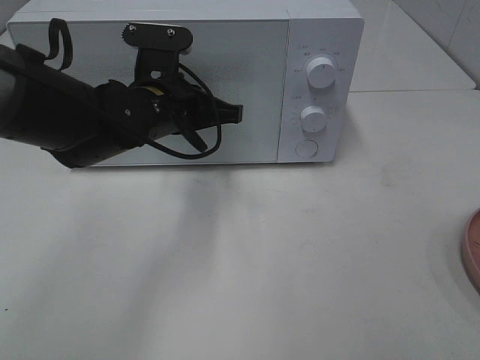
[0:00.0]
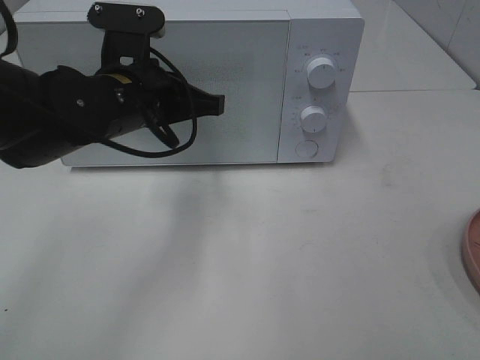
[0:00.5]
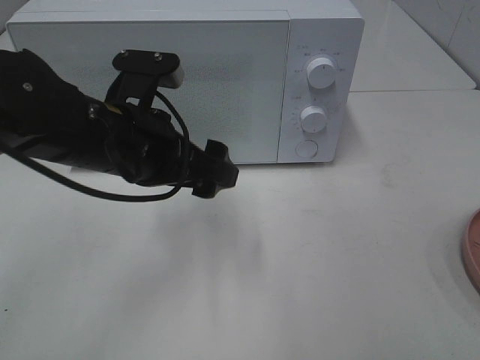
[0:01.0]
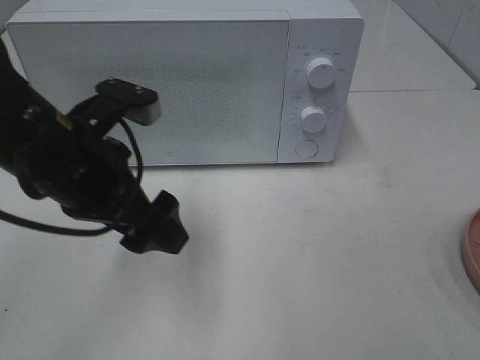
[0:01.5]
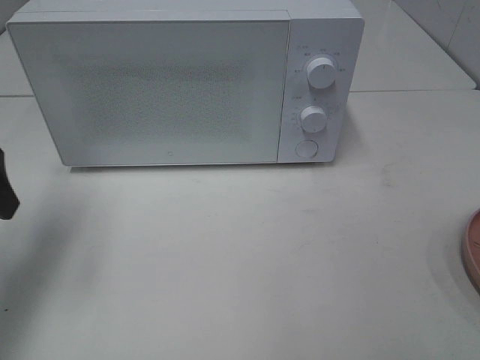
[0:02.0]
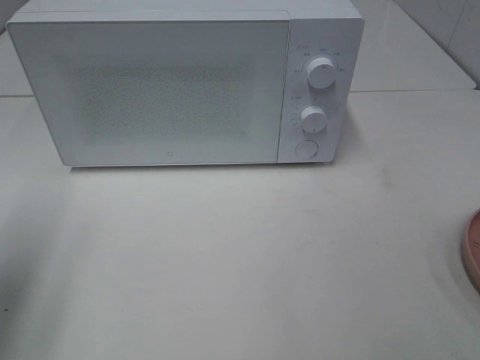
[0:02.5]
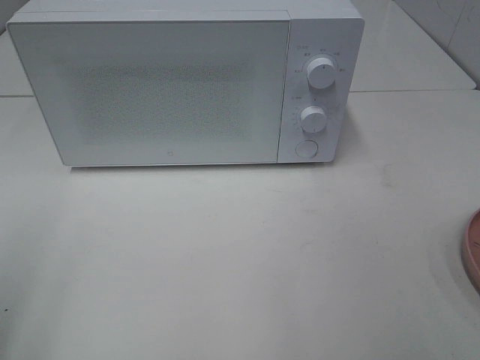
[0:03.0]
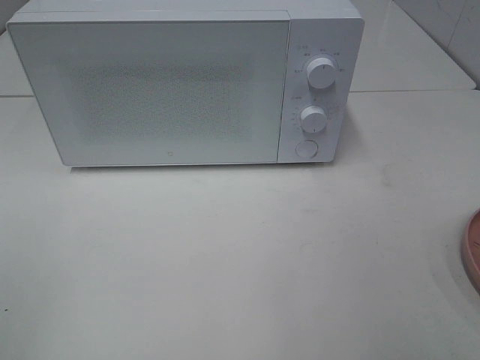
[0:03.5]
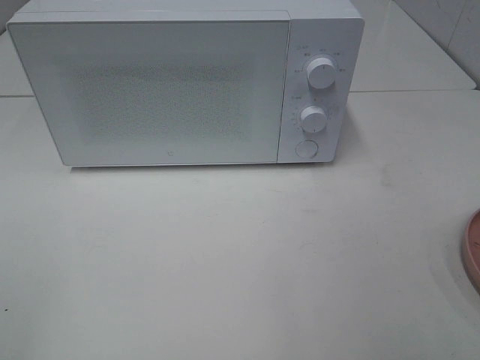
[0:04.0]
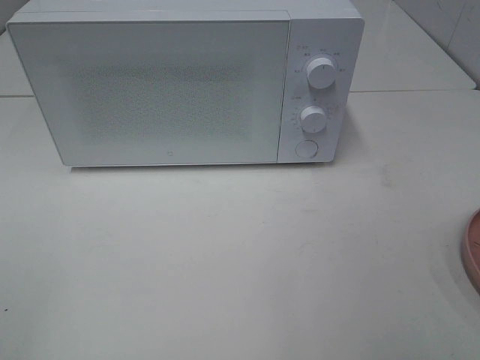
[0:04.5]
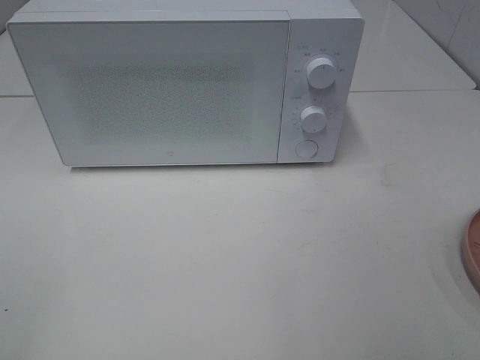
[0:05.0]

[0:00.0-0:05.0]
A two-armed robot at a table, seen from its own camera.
Task of the whole recording: Heat the burger.
0:00.0 to 0:02.5: The left gripper moves to the left, backward and upward, about 30 cm, and opens its fingers.
0:02.5 to 0:05.0: The left gripper goes roughly 15 cm backward.

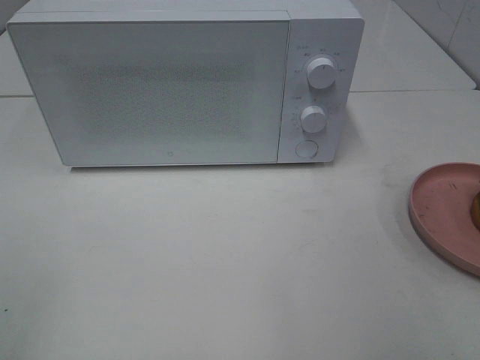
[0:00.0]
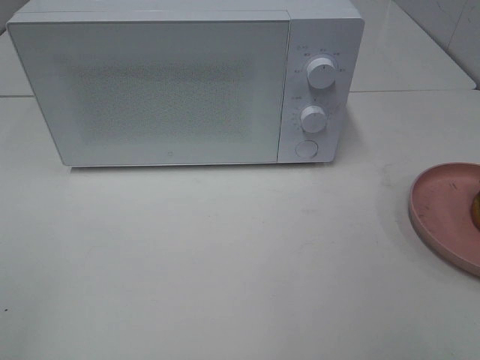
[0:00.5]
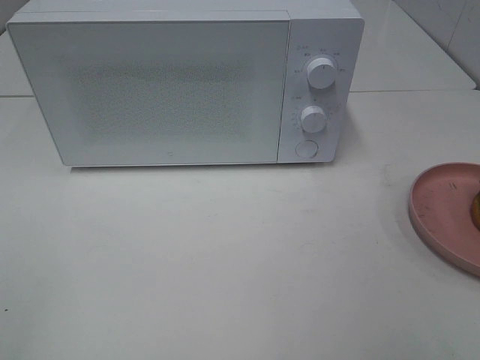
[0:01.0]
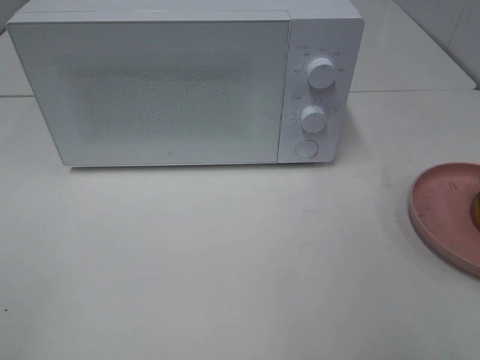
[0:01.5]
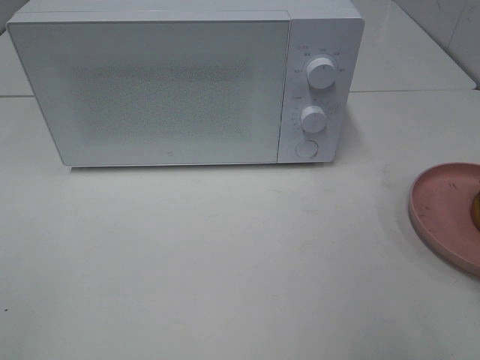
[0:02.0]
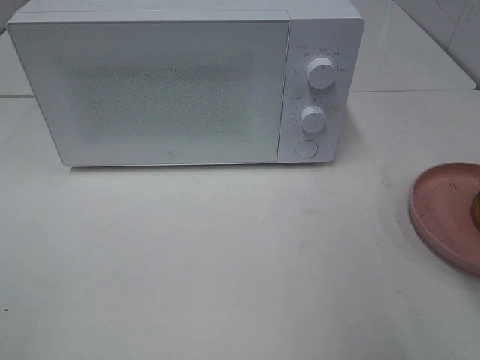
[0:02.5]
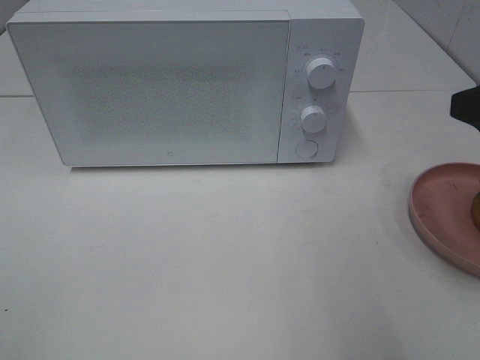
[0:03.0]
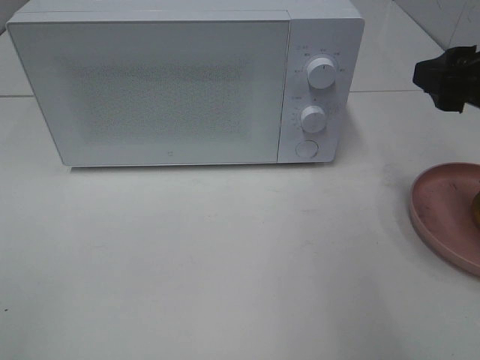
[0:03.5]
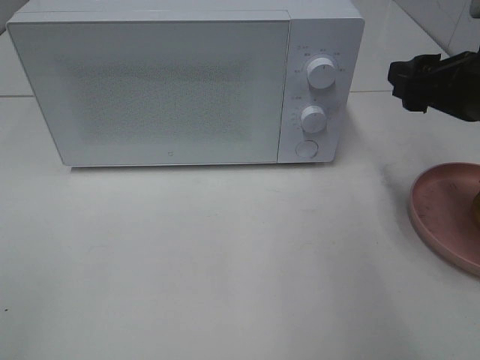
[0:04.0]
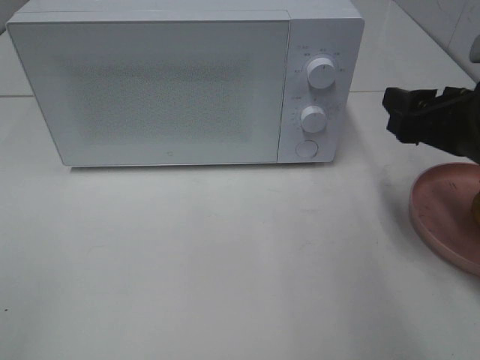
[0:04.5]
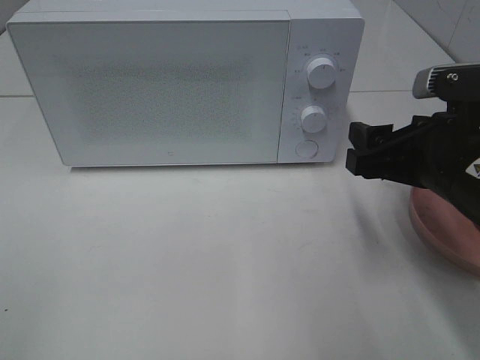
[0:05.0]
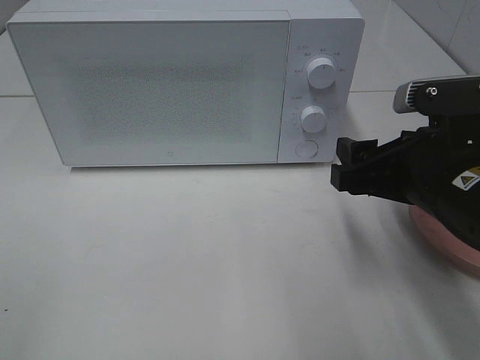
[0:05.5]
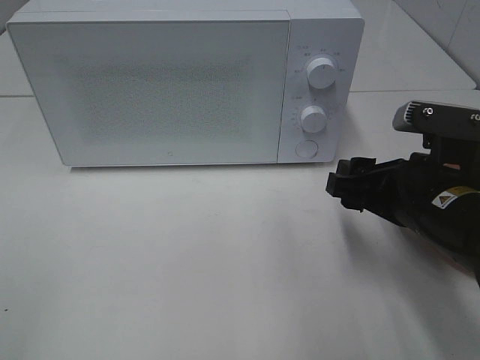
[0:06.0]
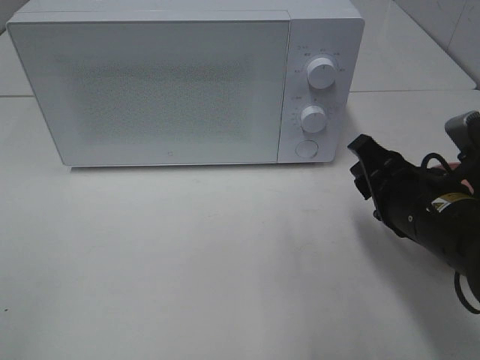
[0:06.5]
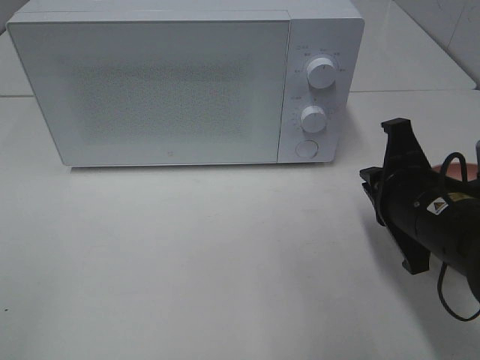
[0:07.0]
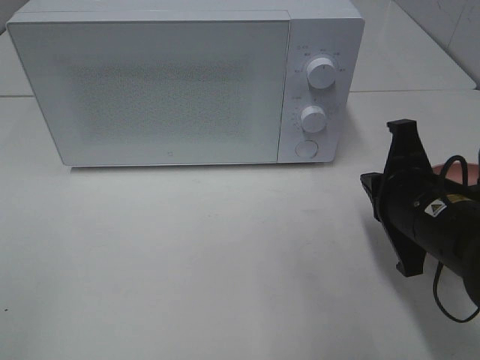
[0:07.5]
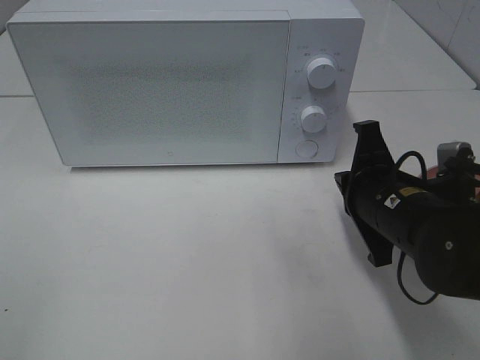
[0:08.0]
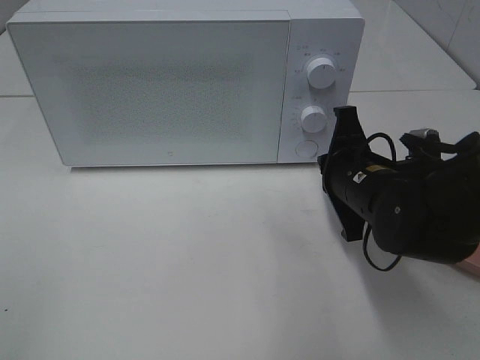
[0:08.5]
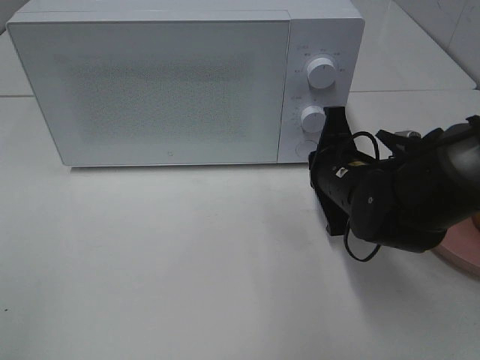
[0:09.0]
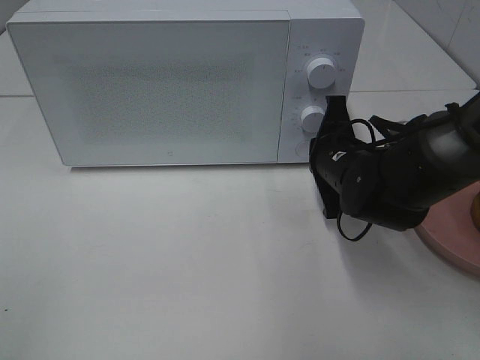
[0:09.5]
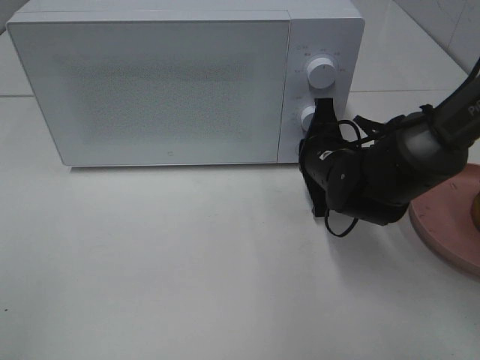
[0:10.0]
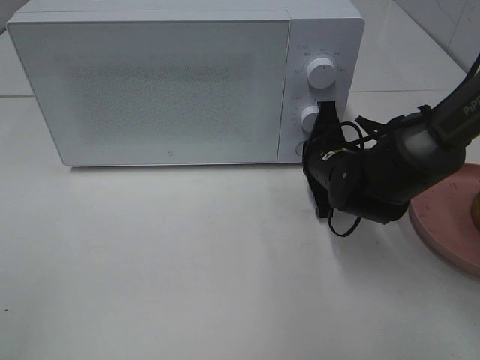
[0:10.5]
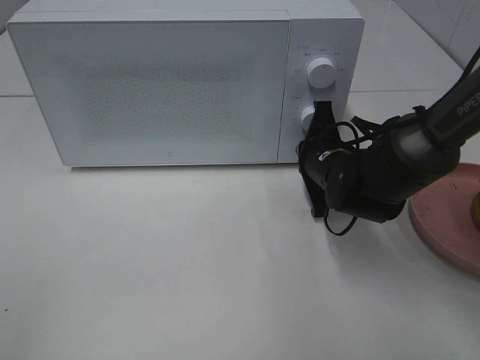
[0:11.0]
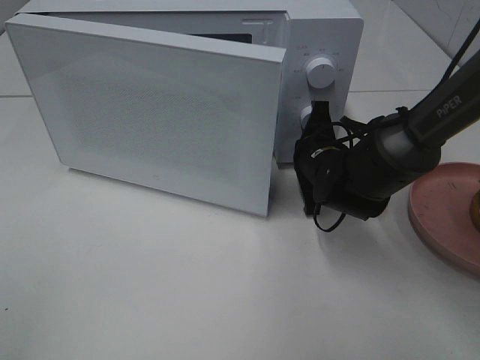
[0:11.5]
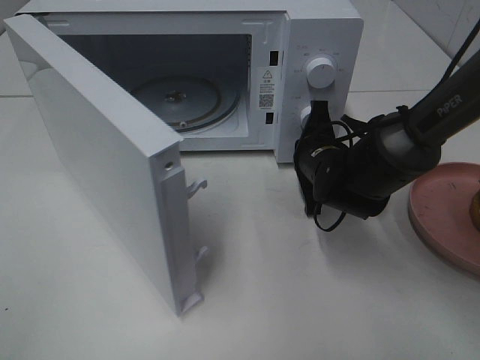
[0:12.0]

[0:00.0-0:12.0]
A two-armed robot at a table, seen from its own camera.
Task of the whole recording: Heat the burger.
0:02.0 to 0:04.0: The right gripper travels forward by about 15 cm.
0:04.0 to 0:06.0: The right gripper moves downward, to the left and backward, some 10 cm.
0:06.0 to 0:08.0: The right gripper closes.
0:08.0 to 0:10.0: The right gripper goes approximately 10 cm forward.

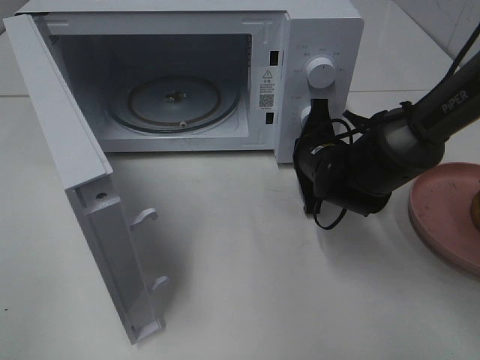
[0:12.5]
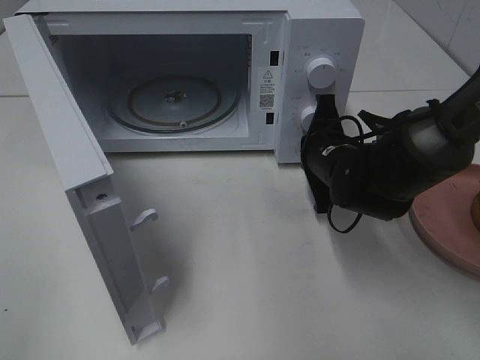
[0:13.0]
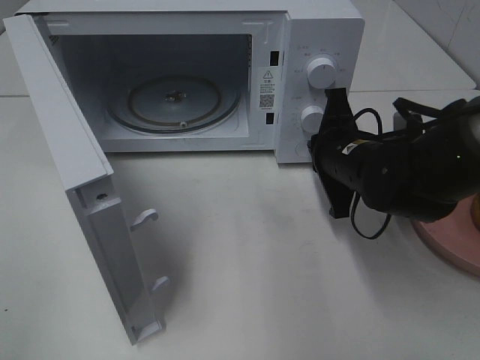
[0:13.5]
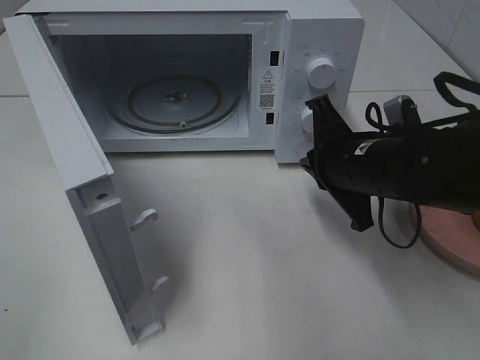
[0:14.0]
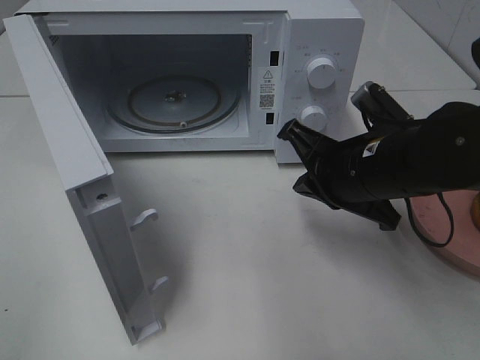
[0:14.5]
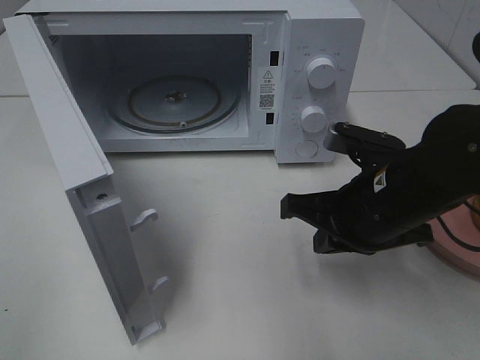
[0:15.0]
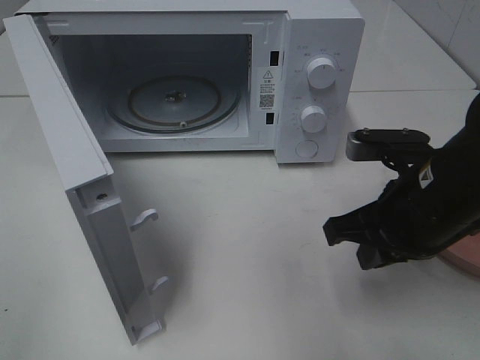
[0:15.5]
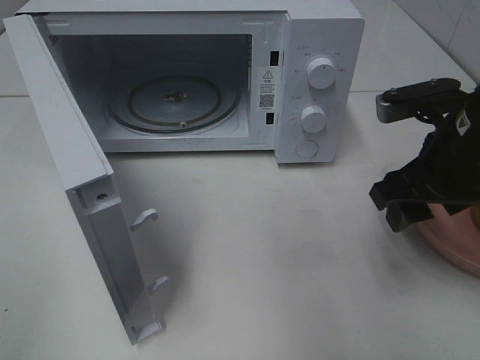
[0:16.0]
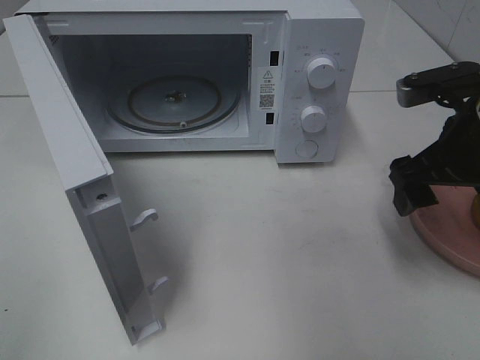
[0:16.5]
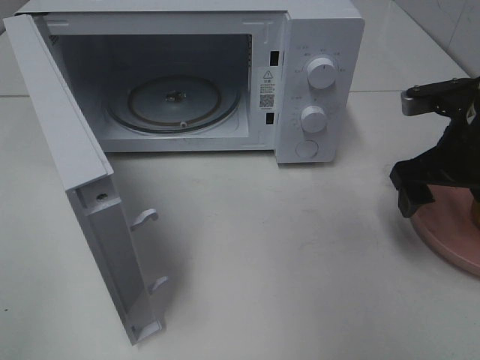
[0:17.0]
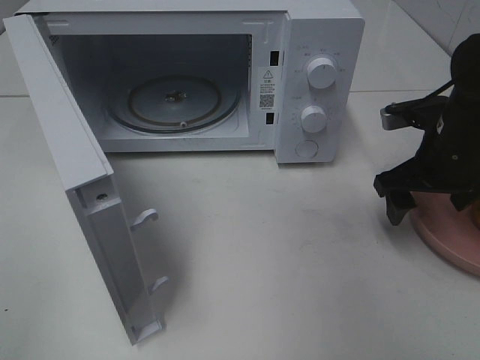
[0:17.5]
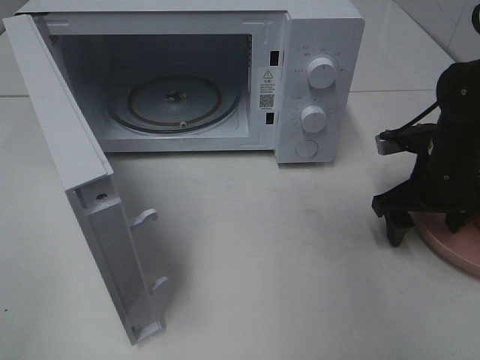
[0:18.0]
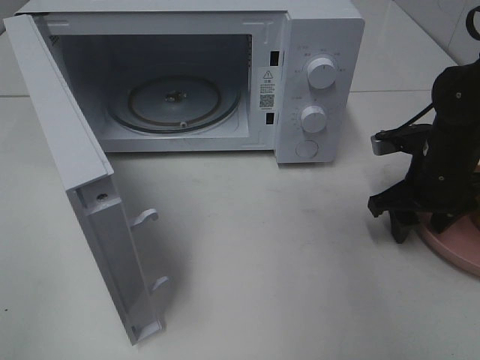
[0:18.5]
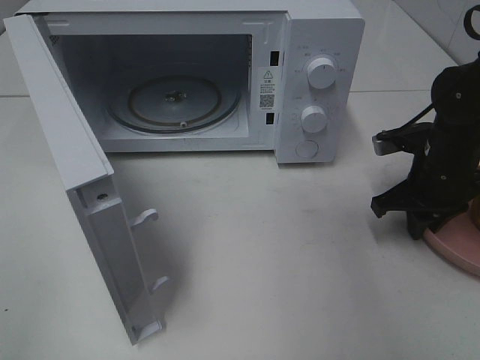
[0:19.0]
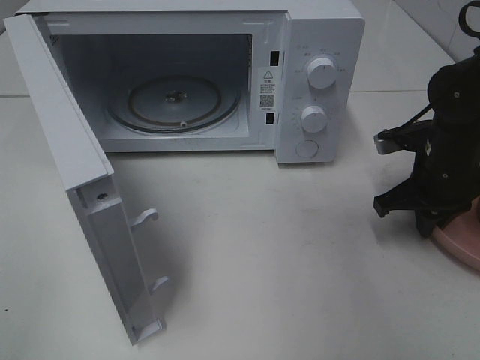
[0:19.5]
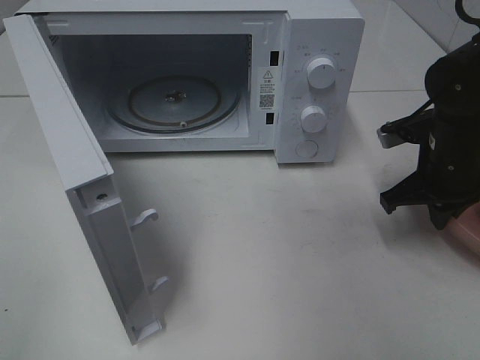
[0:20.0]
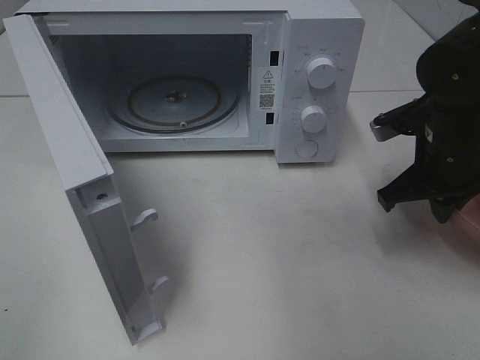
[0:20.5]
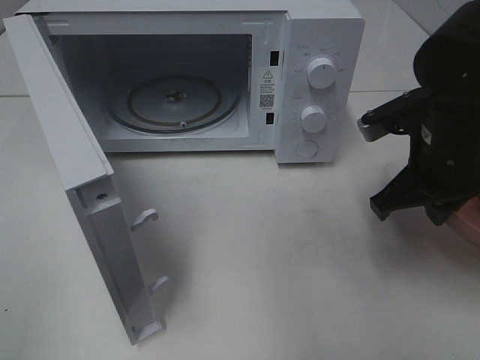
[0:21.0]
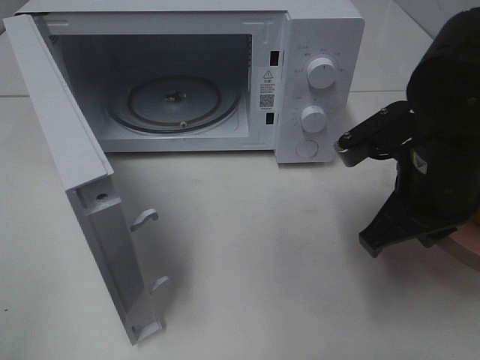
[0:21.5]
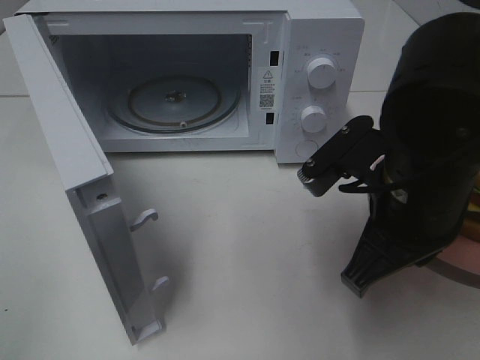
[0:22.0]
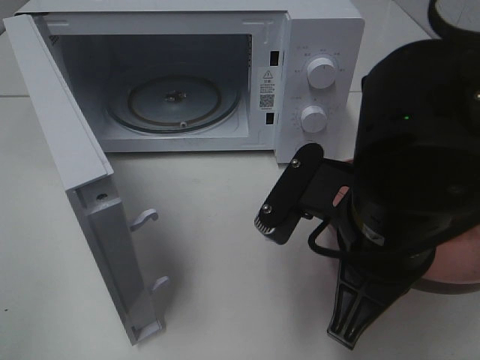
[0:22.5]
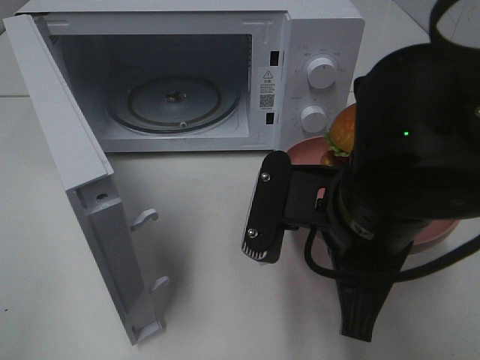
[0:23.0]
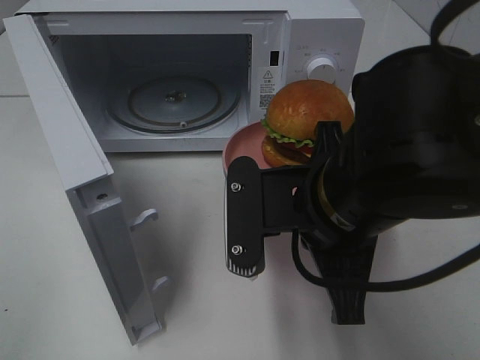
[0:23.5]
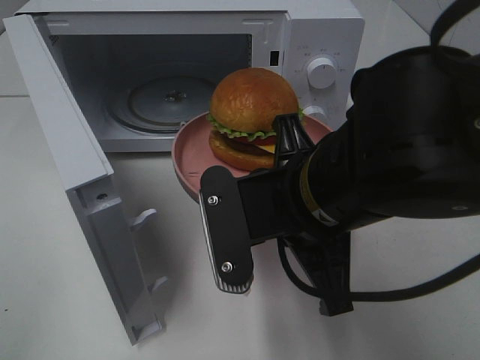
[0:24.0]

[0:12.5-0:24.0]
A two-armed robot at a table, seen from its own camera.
Task of the whole recording: Heat the burger.
Step, 0:14.0 to 0:19.5: Right hand: grab the plate with the hamburger.
0:12.5 to 0:14.5: The right gripper is displaced backward and upward by approximately 10 cm.
0:14.5 to 0:16.5: The right gripper moves to the right and upward, roughly 10 cm, and opens its fingers.
0:16.5 to 0:18.5: The right gripper travels downward and forward by about 10 cm, and closes up.
0:18.5 to 0:20.0: The right gripper closes its fingers.
0:20.0 to 0:22.0: The right gripper shifts about 20 cm backward, to the left and upward.
0:22.0 to 0:24.0: The right gripper shifts approximately 5 cm to the left.
